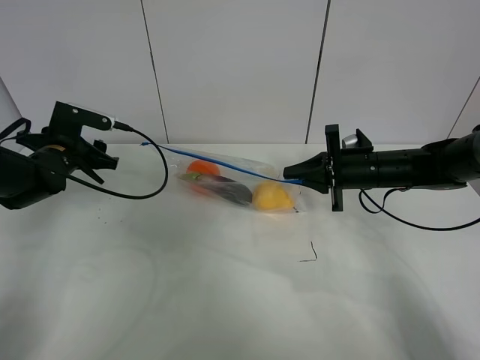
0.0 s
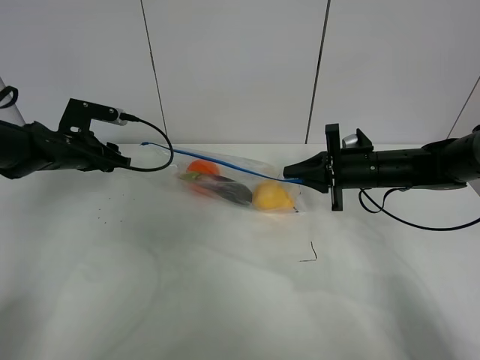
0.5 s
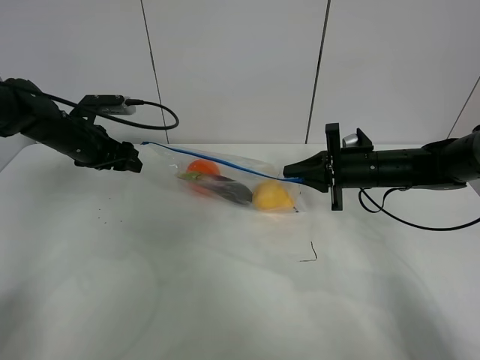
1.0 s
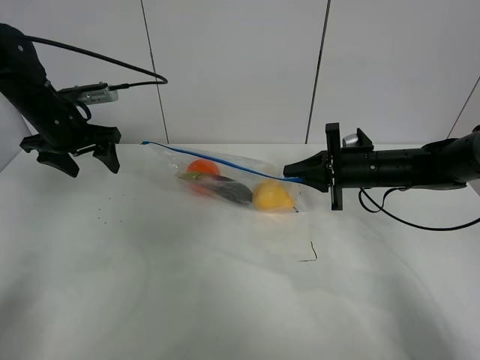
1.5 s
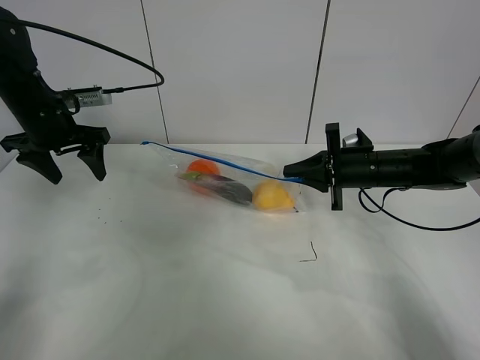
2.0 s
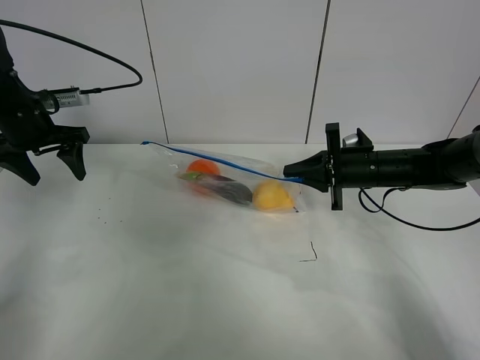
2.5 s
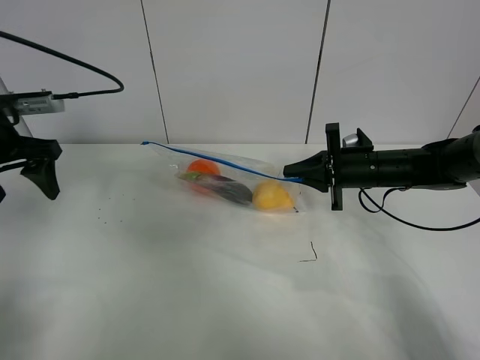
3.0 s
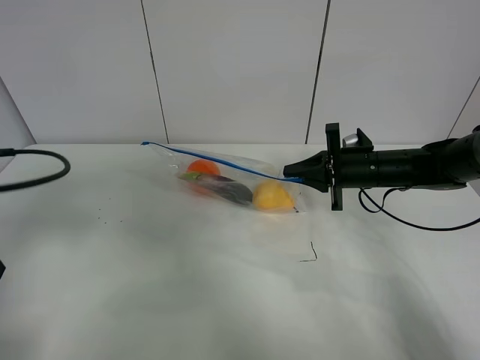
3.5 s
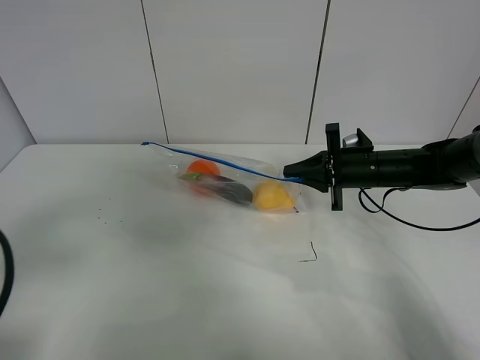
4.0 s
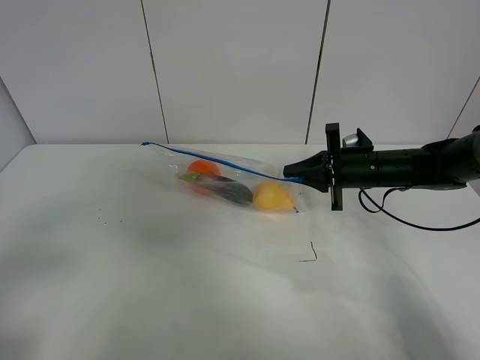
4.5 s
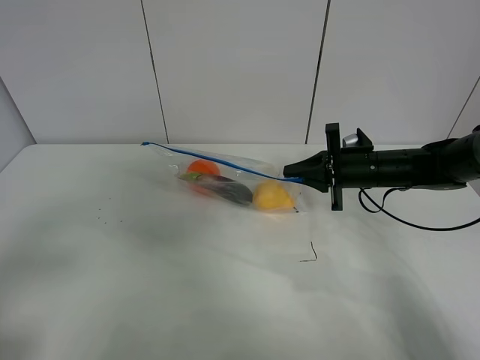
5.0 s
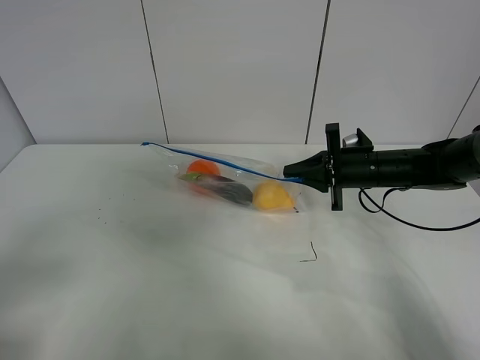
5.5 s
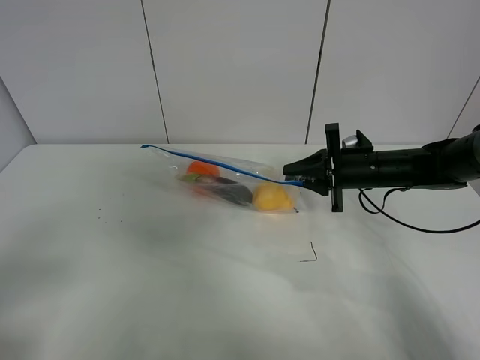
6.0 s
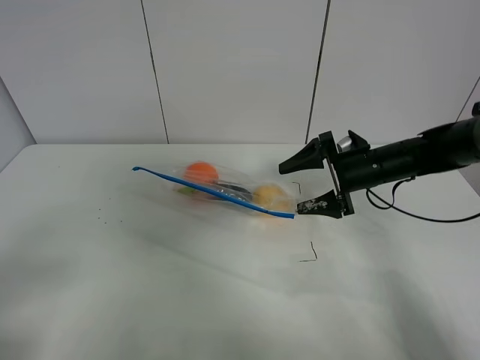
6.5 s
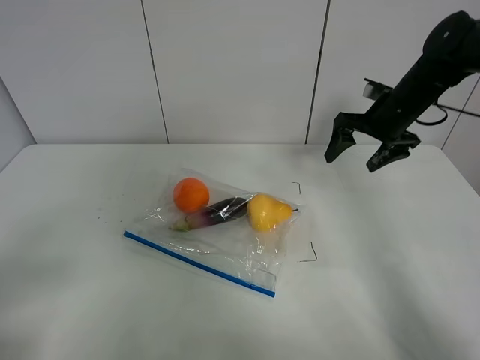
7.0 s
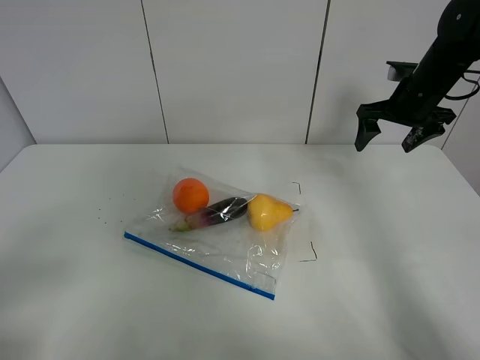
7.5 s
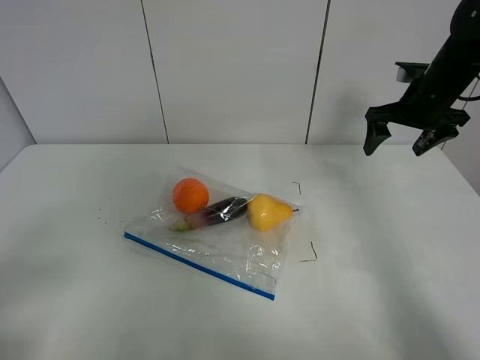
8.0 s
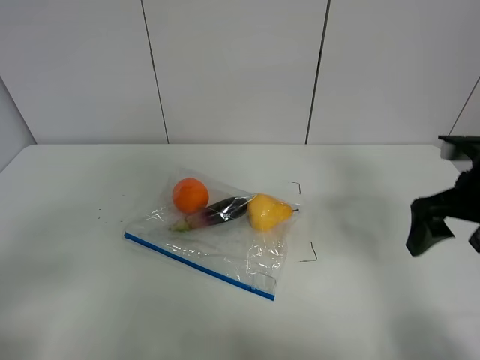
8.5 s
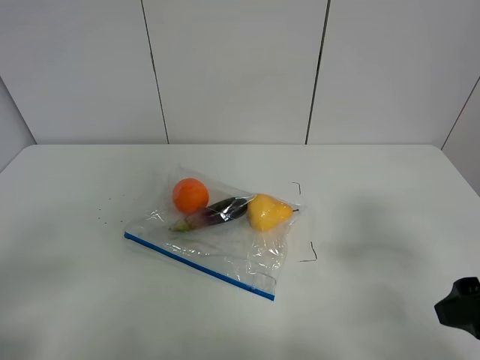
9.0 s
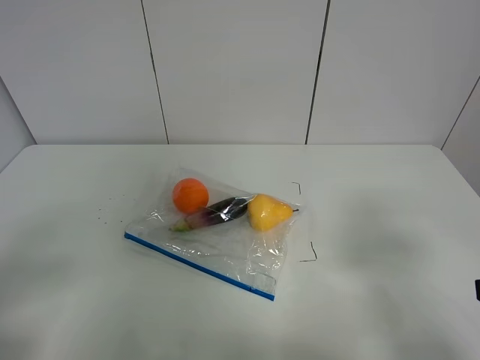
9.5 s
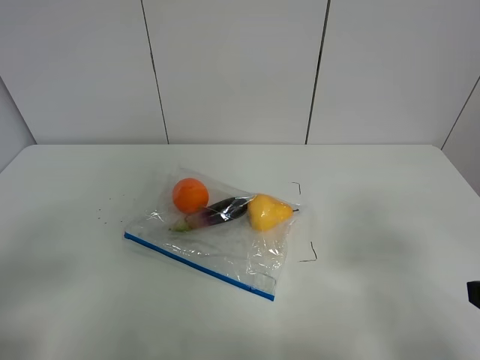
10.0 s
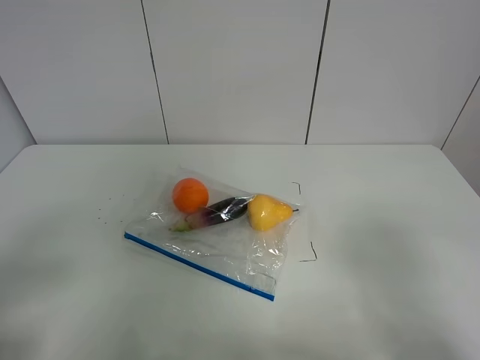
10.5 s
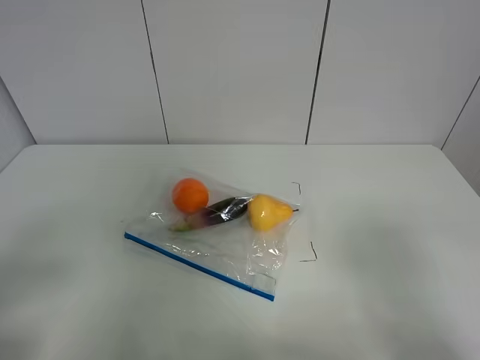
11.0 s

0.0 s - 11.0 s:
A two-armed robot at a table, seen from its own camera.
0.0 s - 2.0 s: The left gripper heads upward, covering approximately 10 cm.
2.0 s - 3.5 s: The left gripper goes roughly 25 cm backward.
3.5 s - 5.5 s: The left gripper moves backward, some 15 cm.
5.5 s - 7.5 s: The right gripper travels upward, forward and to the right by approximately 15 cm, and opens.
7.5 s - 9.0 s: The right gripper goes roughly 30 cm backward.
9.0 s - 11.0 s: The right gripper moves backward, roughly 10 cm.

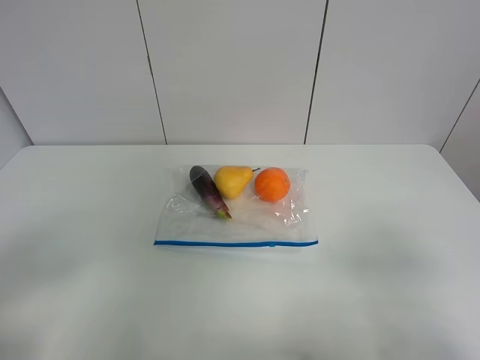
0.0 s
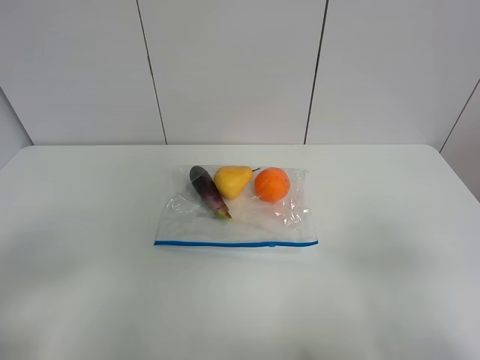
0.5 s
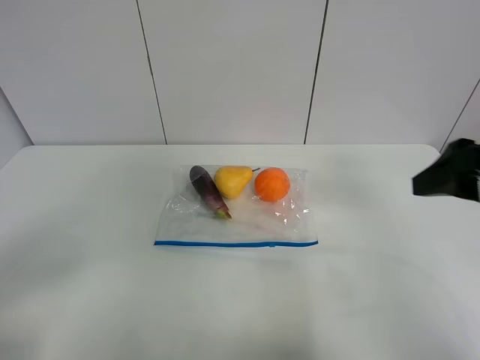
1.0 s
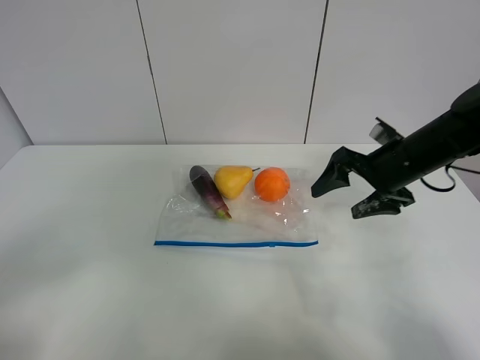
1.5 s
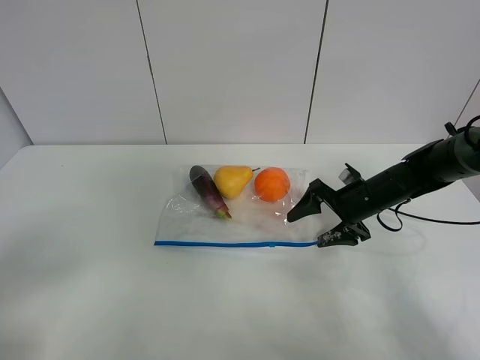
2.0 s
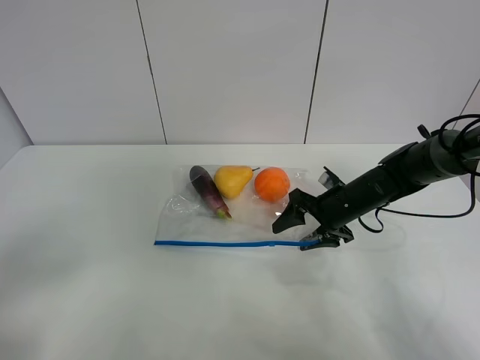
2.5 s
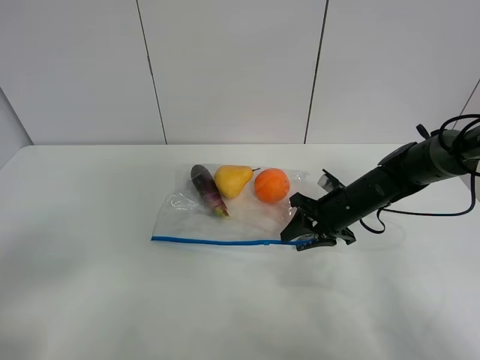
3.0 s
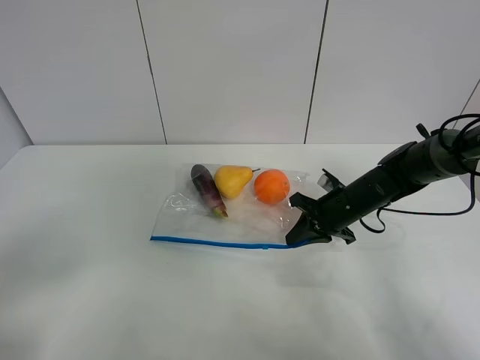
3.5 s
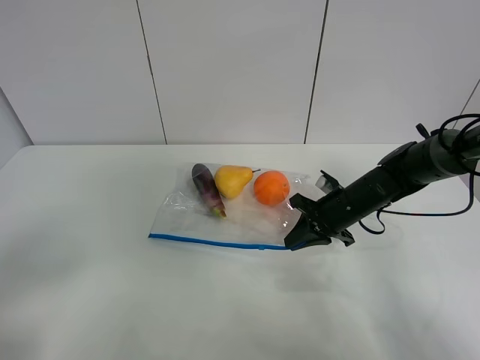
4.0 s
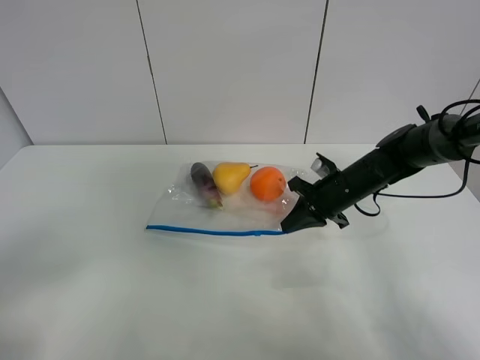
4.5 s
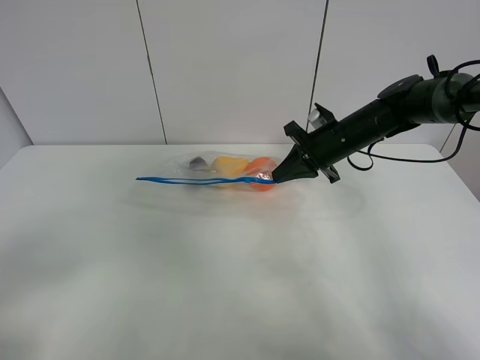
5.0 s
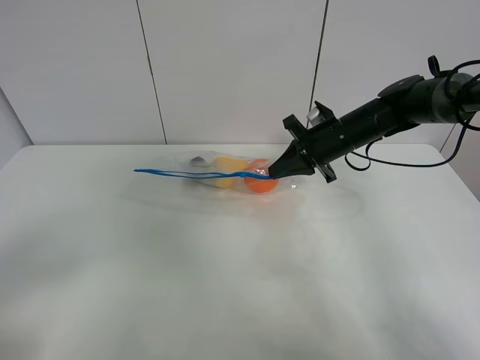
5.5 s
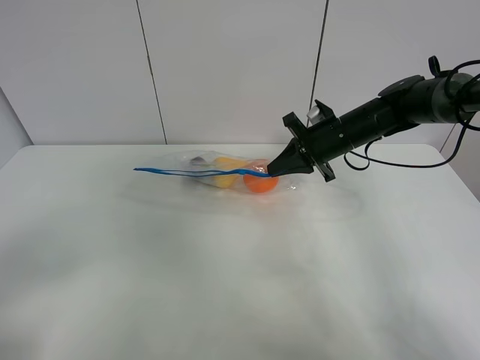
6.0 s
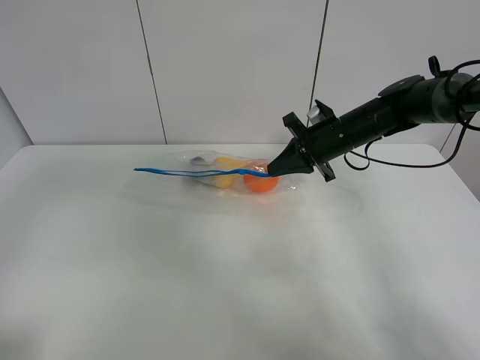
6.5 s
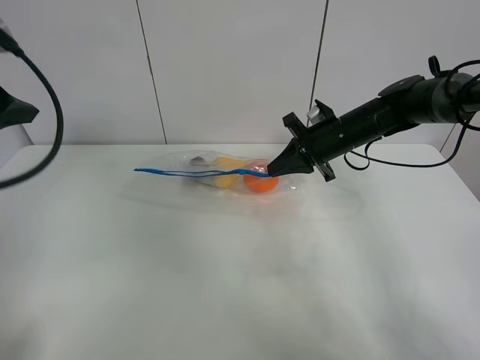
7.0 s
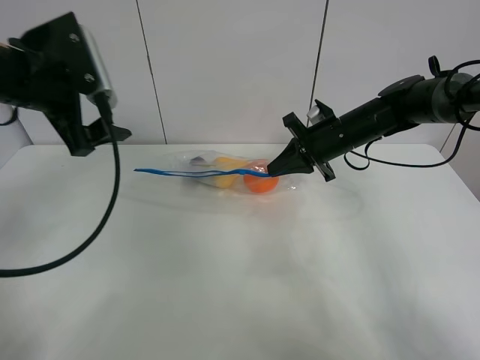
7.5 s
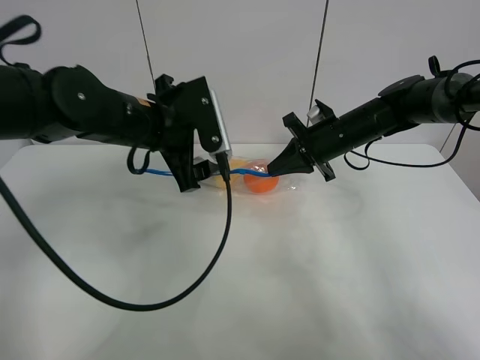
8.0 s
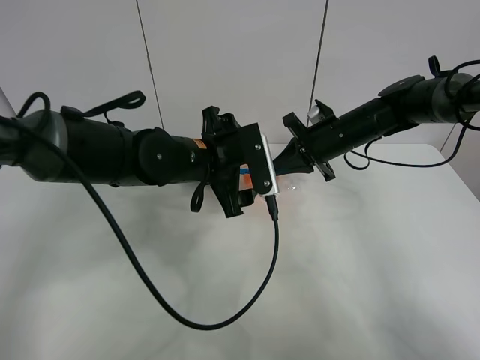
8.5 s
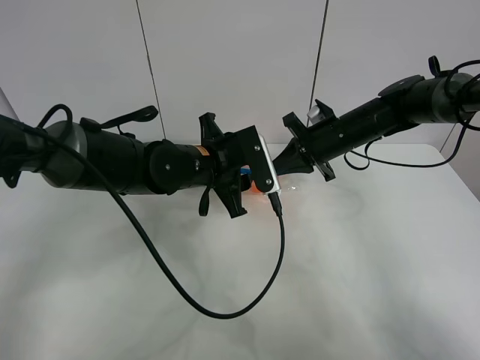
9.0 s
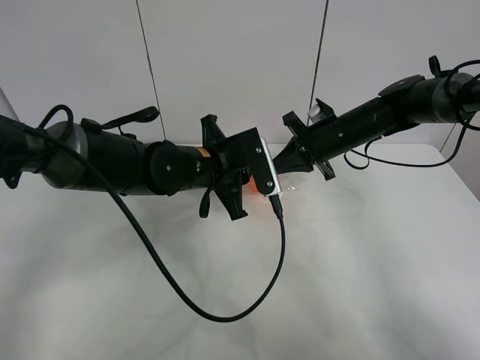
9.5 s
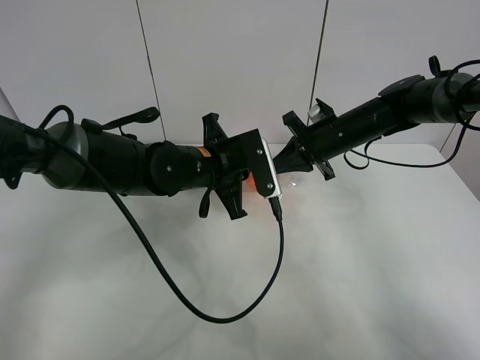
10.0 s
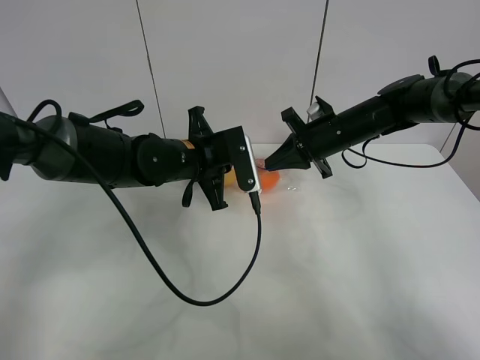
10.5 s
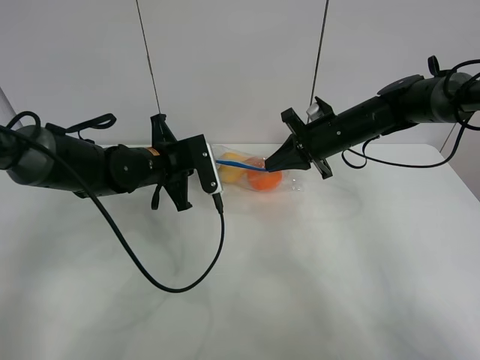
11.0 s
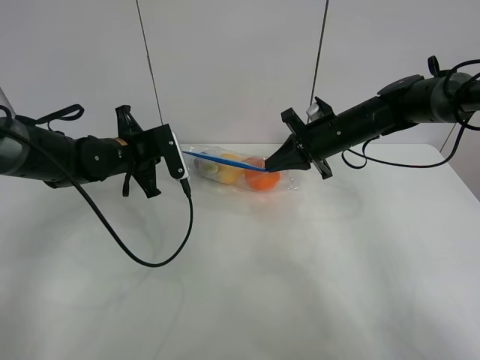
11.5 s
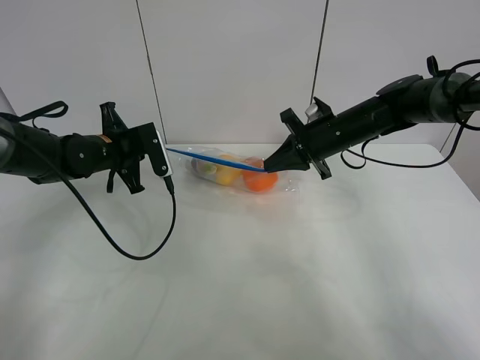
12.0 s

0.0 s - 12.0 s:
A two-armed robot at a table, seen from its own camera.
Step, 0.0 s - 4.0 s: Grasp the fruit bag with right gripper.
Step, 4.5 s - 5.5 s: Lift the fruit bag with your right gripper.
0.0 s - 2.0 s: The right gripper heads forward and downward, covering some 40 cm.
2.0 s - 4.0 s: The right gripper closes its fingers.
4.0 s - 6.0 s: The right gripper travels upward and forward by roughly 10 cm.
6.0 s - 8.0 s: The left gripper goes roughly 35 cm forward and to the right.
8.0 s - 10.0 s: The left gripper goes approximately 10 cm downward and to the right, and closes up.
10.0 s - 12.0 s: The left gripper moves to the left, about 15 cm.

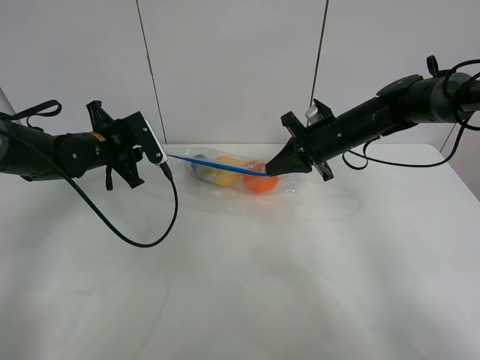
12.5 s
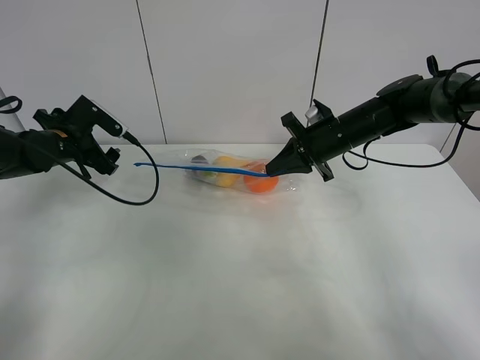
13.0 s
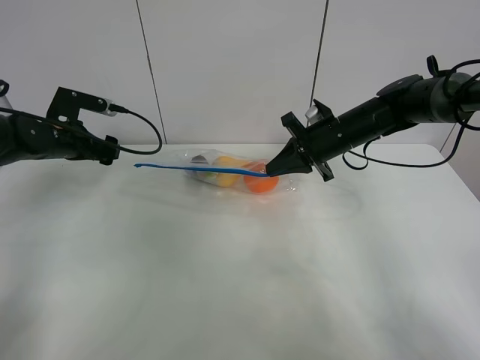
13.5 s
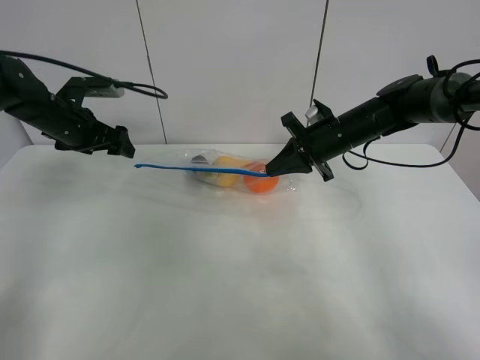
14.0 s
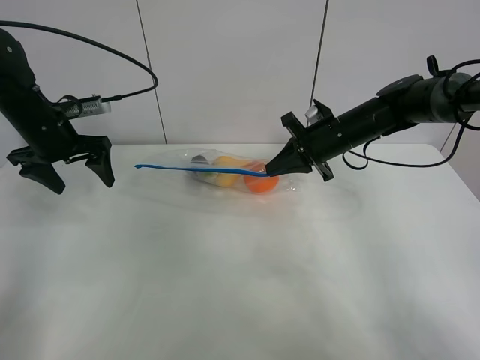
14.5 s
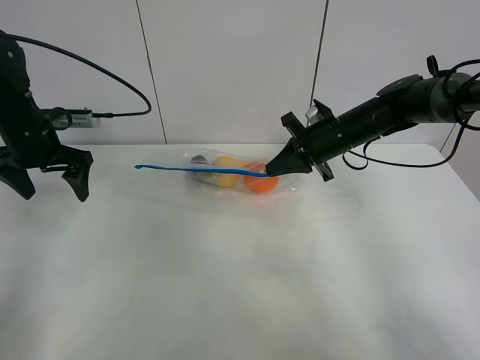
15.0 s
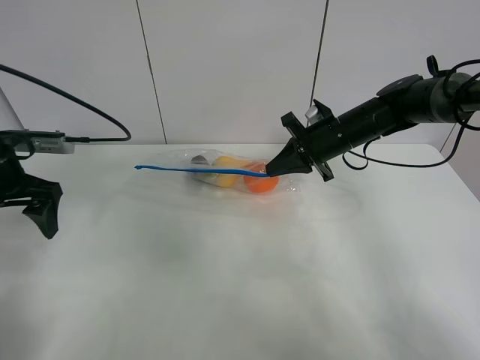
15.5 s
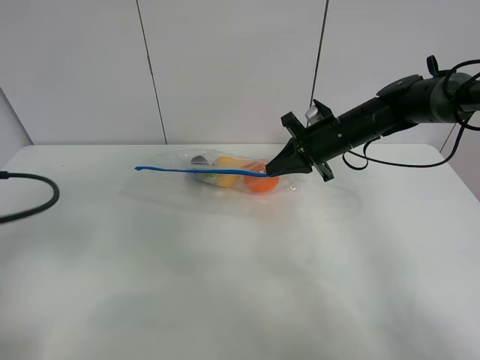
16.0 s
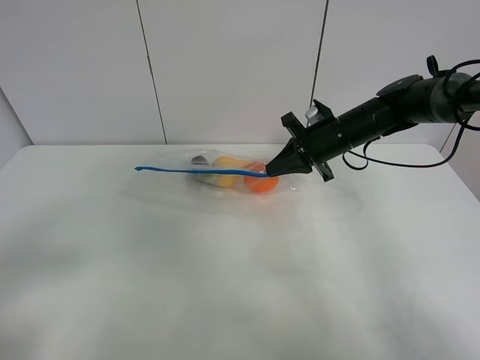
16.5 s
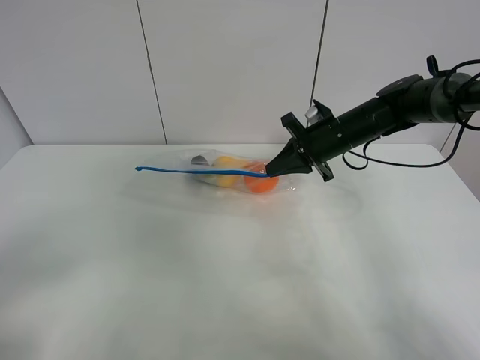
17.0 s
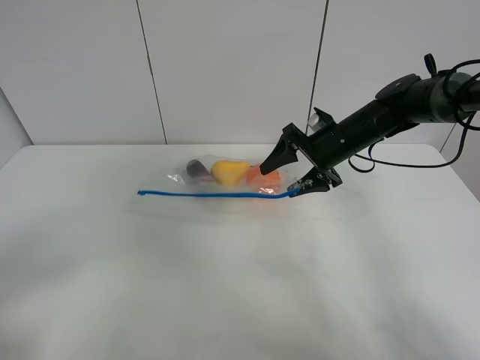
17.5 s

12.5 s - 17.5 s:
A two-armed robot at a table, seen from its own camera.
12.5 s - 15.0 s: The left gripper moves to the left and upward, roughly 10 cm, and opens up.
15.0 s - 17.5 s: The left gripper is displaced backward by about 35 cm; the right gripper opens its fingers.
